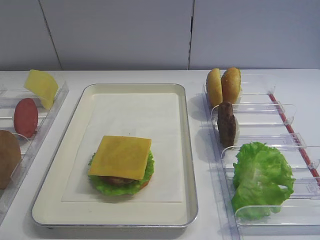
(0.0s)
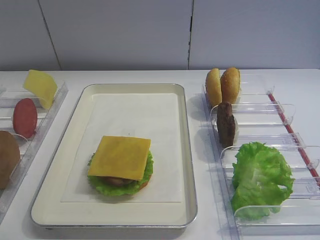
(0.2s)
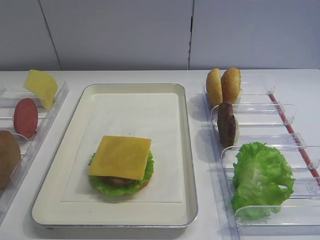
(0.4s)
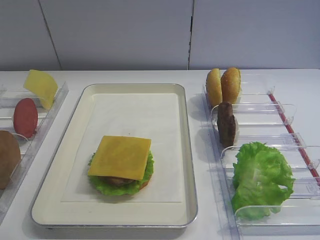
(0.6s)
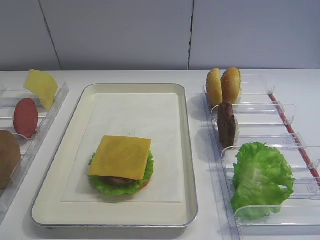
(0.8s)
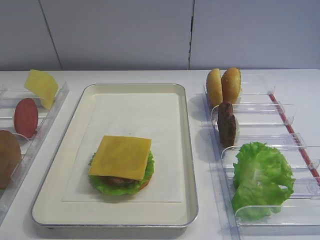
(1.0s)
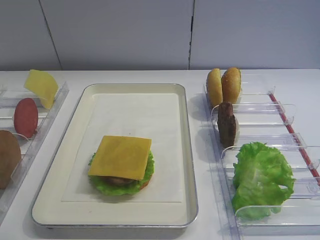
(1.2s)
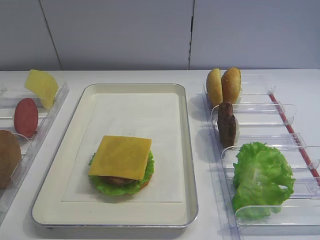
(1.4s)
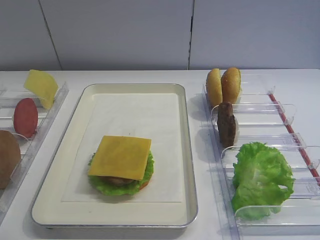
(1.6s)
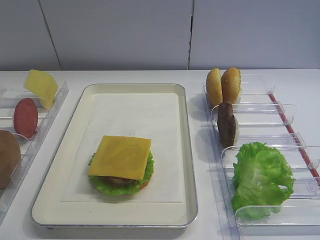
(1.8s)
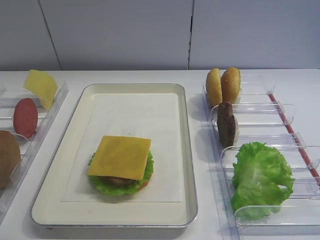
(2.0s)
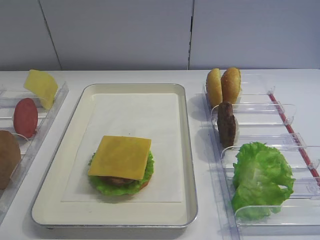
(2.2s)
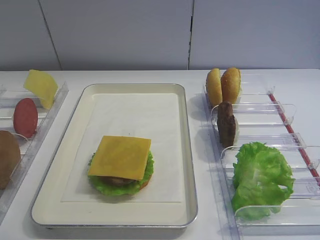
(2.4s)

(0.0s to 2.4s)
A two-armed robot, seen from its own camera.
0.0s - 1.2s: Both grippers stay put.

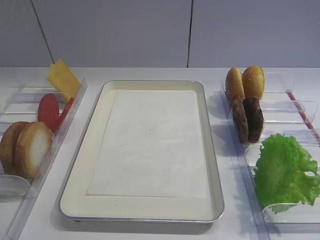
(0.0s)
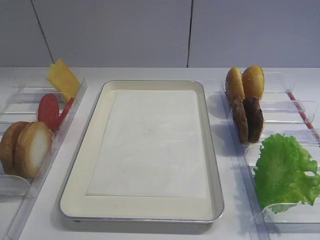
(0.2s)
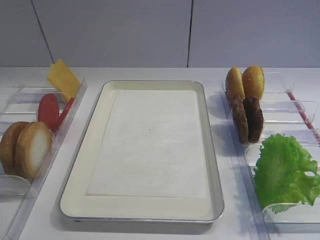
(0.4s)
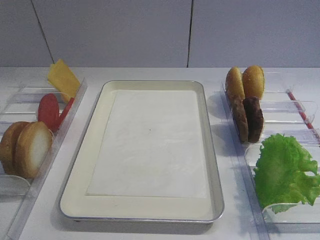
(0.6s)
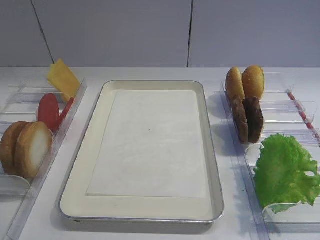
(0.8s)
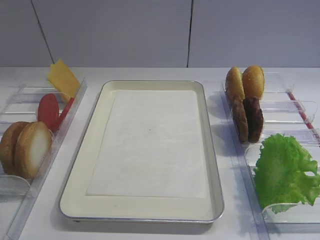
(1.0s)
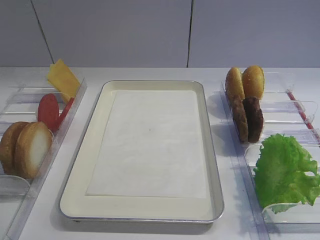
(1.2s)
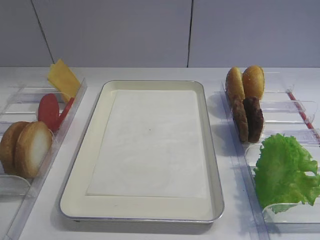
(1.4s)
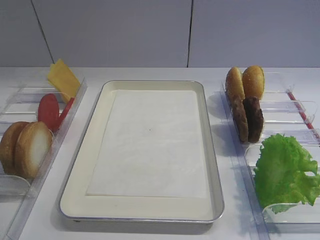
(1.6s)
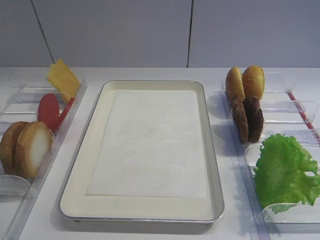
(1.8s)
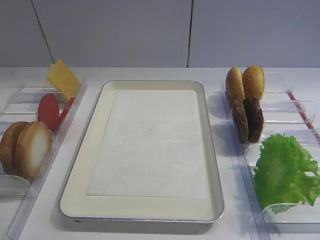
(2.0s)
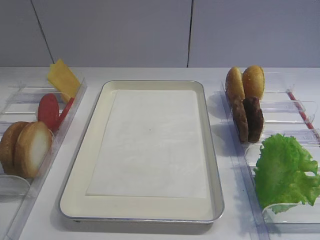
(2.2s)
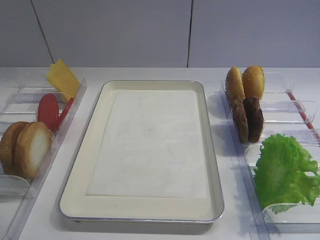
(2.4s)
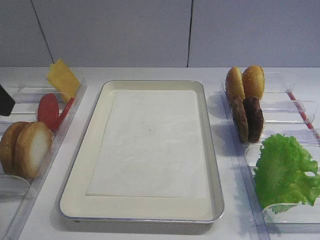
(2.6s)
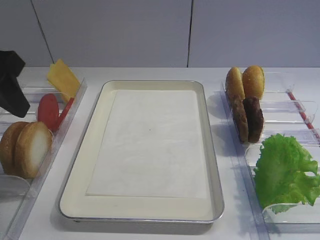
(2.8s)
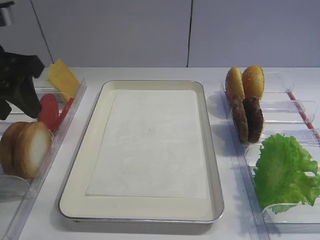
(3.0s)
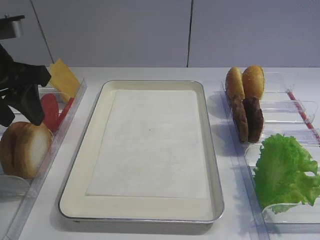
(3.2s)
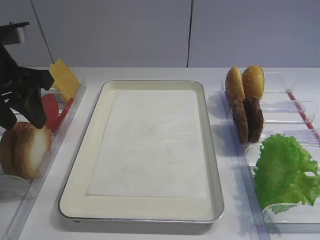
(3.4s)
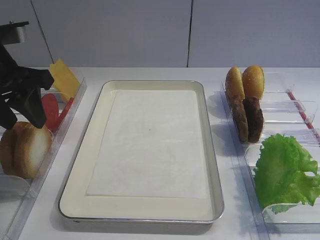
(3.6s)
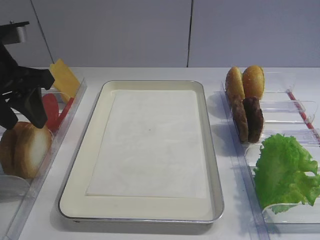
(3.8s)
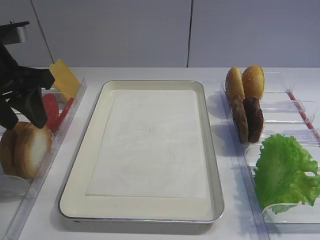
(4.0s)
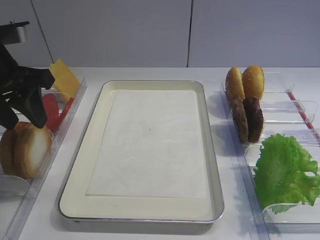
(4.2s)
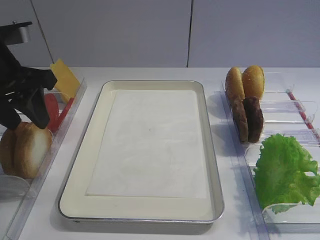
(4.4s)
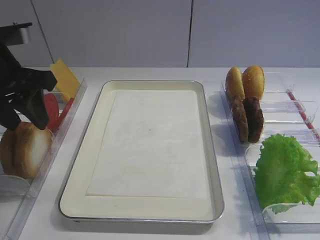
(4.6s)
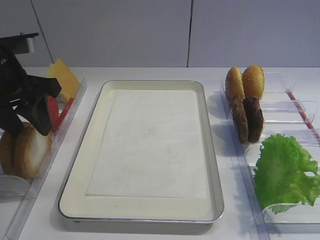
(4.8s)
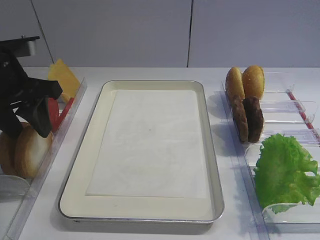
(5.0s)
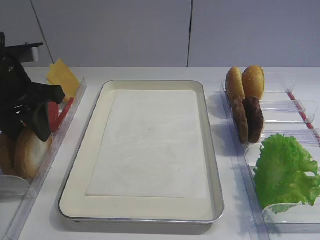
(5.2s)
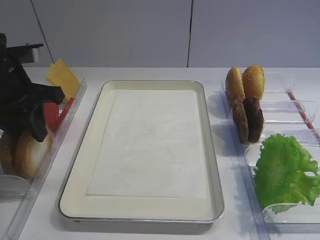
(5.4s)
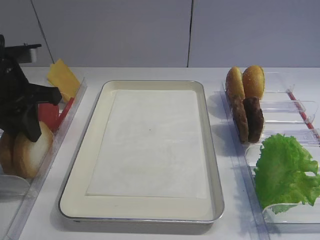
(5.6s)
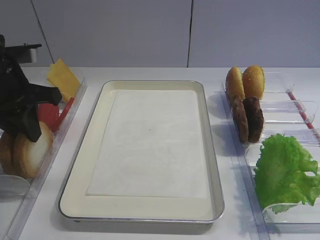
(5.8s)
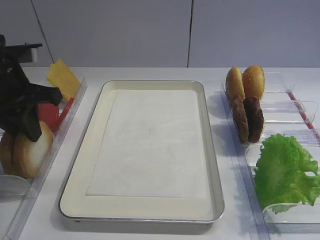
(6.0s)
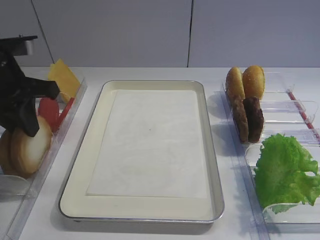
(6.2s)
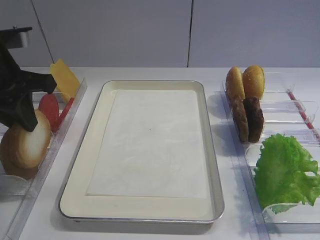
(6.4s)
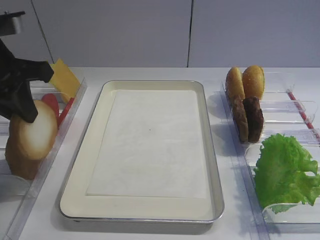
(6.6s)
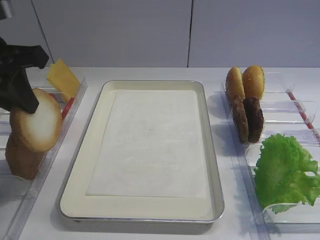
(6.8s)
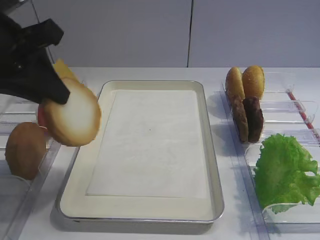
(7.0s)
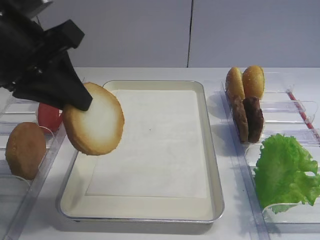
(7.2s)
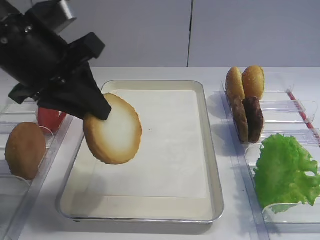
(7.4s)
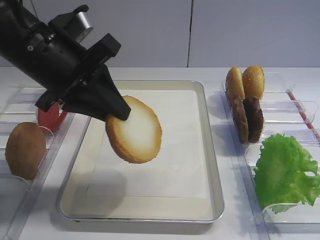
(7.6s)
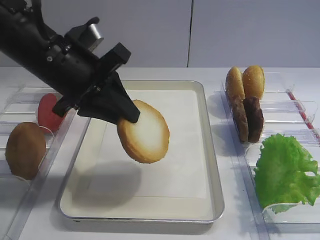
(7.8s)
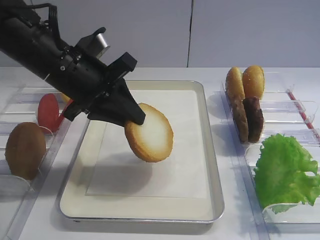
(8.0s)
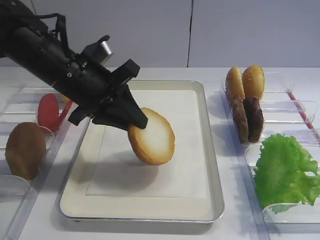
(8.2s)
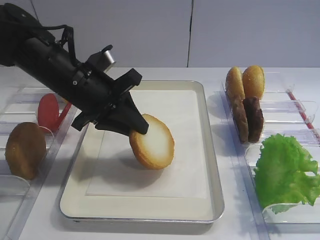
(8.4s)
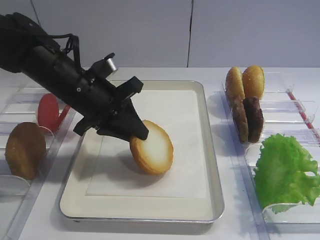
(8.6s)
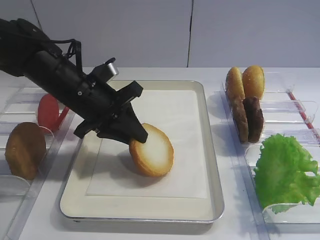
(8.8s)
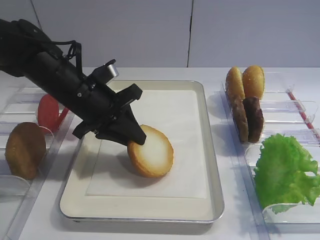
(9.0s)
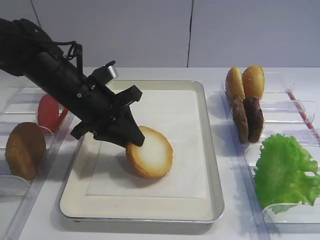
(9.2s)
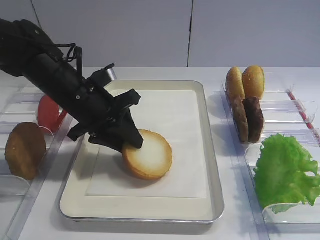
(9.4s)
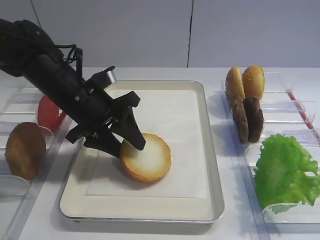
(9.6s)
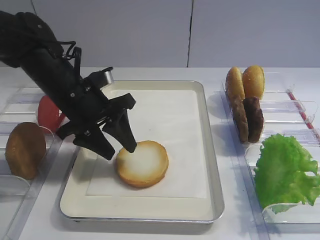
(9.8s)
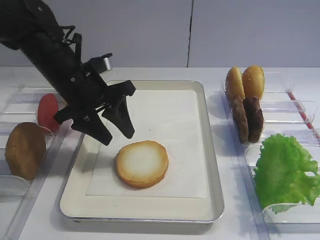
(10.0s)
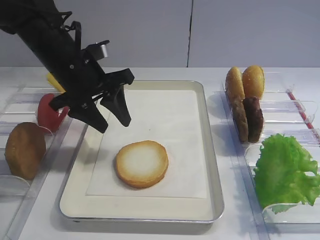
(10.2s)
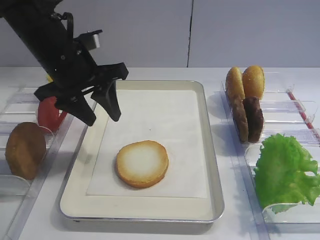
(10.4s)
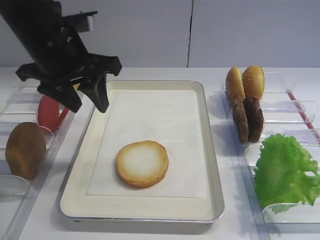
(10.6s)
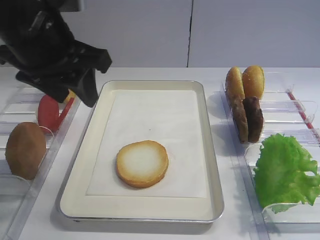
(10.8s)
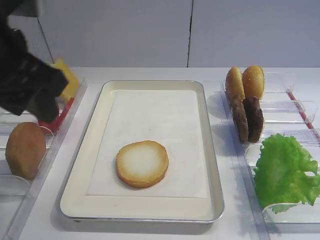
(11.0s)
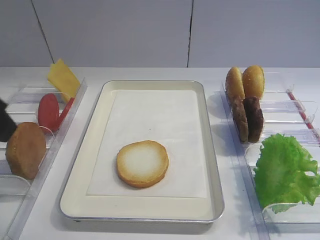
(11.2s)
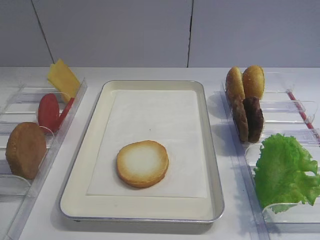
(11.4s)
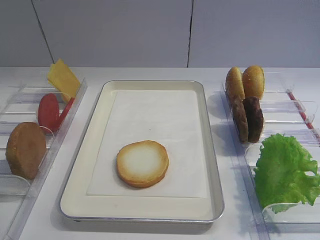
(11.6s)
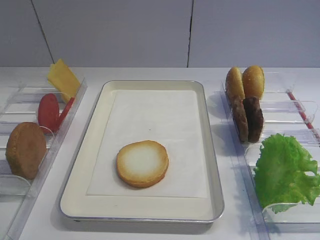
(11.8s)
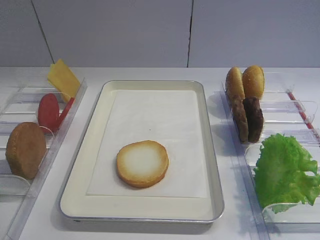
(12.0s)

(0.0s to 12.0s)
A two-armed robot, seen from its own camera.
Step, 0.0s - 6.6s: Pick up the bread slice with the left gripper.
Step, 6.8s - 10.2s: Place the bread slice on the tray with the left gripper.
1.6s - 3.0s: The left gripper shifts approximately 25 cm forward, and opens up.
3.0s - 4.4s: The grippers stay close to where they were, moving slightly.
4.4s - 6.0s: The left gripper closes its fingers.
6.0s - 7.6s: The left gripper shifts about 10 cm to the right.
7.6s - 9.0s: The left gripper goes some 10 cm downward and forward.
9.0s - 10.4s: The left gripper travels upward by roughly 5 cm, and opens its fingers.
10.4s - 12.0s: The left gripper heads backward and to the left, covering about 35 cm.

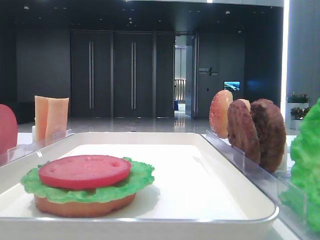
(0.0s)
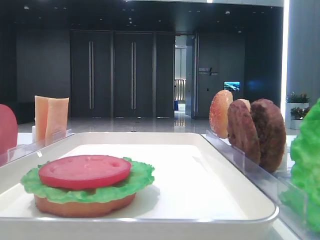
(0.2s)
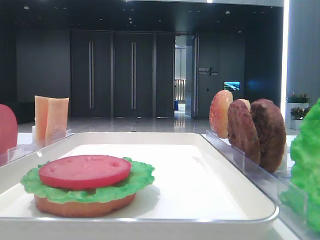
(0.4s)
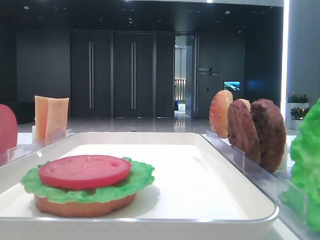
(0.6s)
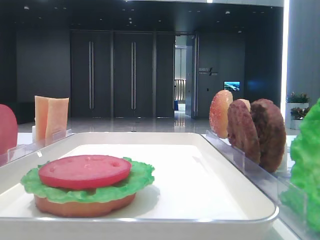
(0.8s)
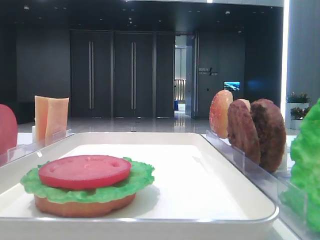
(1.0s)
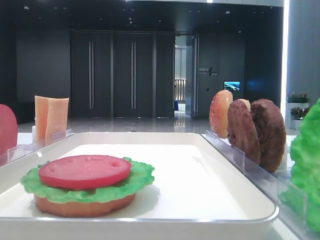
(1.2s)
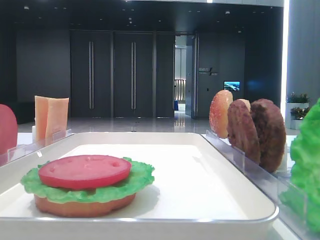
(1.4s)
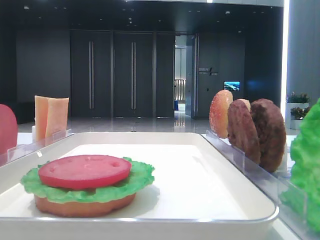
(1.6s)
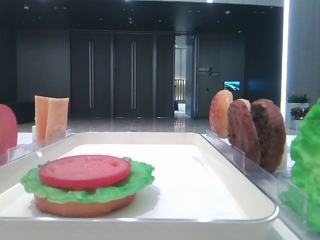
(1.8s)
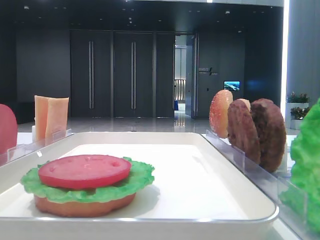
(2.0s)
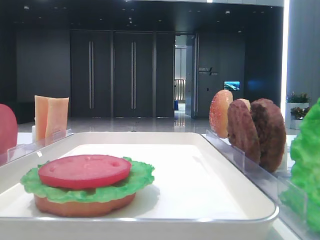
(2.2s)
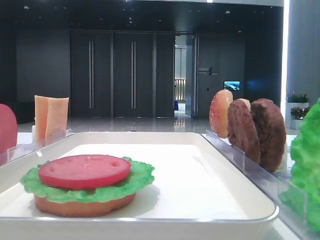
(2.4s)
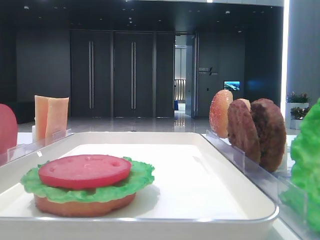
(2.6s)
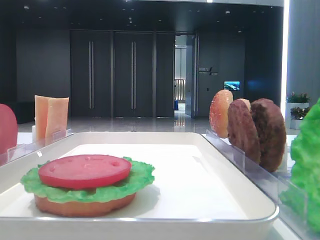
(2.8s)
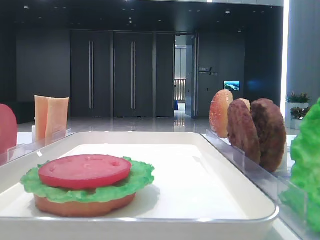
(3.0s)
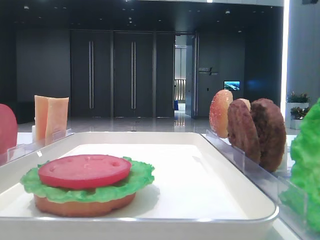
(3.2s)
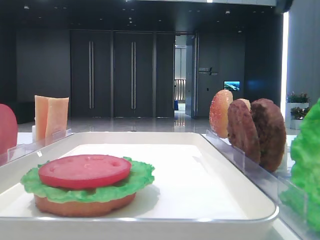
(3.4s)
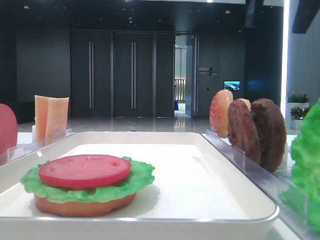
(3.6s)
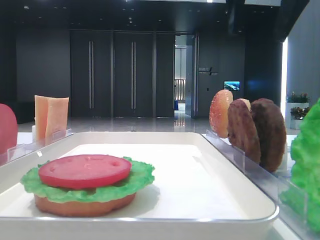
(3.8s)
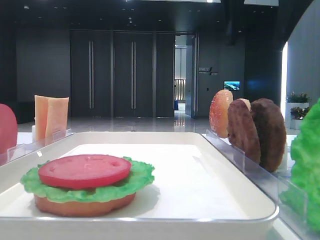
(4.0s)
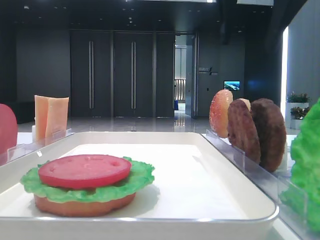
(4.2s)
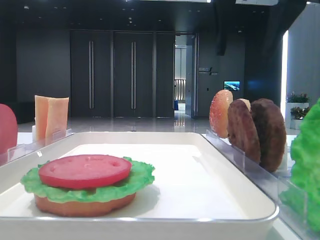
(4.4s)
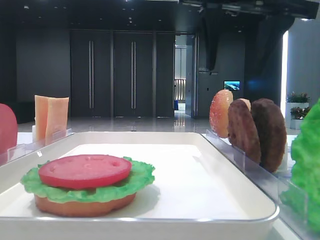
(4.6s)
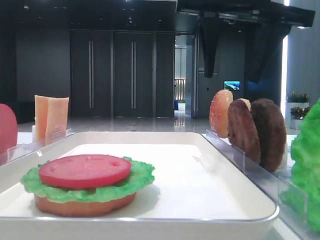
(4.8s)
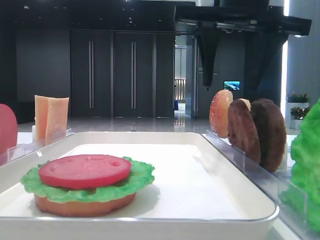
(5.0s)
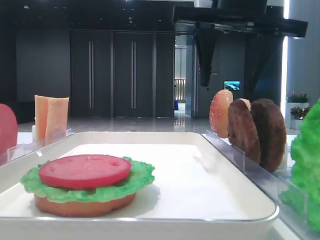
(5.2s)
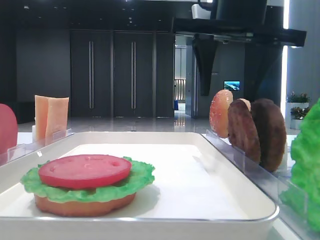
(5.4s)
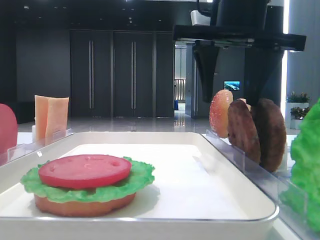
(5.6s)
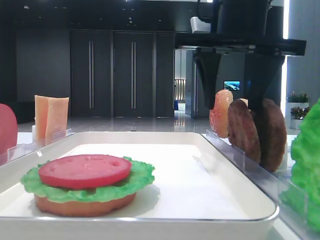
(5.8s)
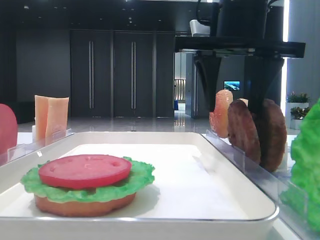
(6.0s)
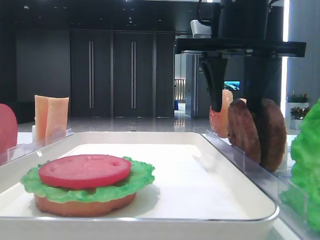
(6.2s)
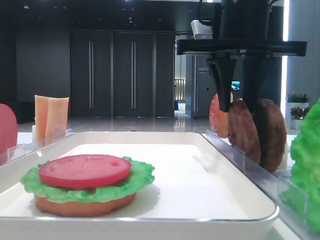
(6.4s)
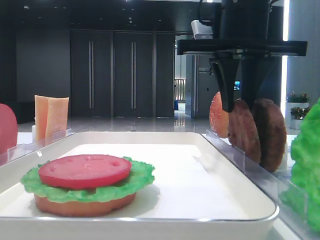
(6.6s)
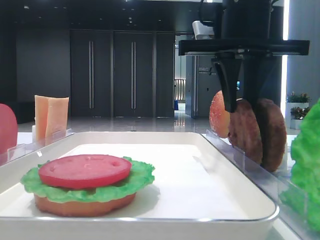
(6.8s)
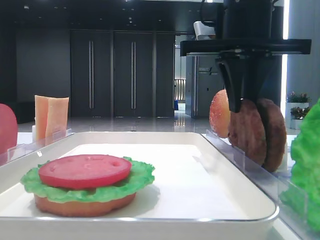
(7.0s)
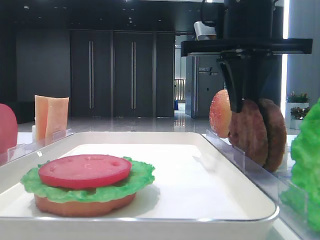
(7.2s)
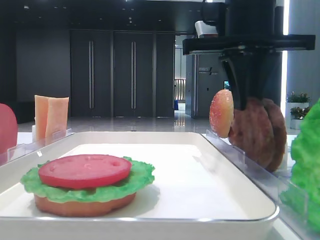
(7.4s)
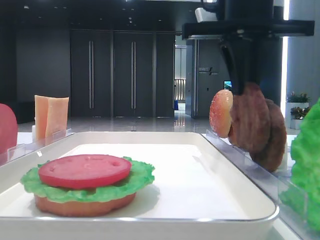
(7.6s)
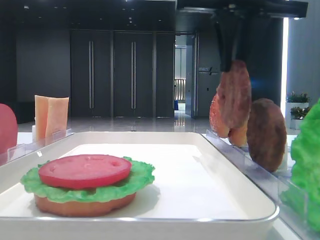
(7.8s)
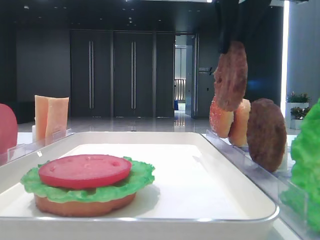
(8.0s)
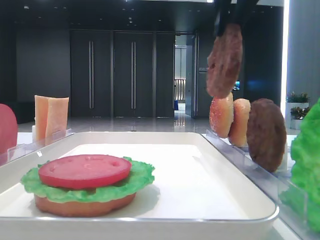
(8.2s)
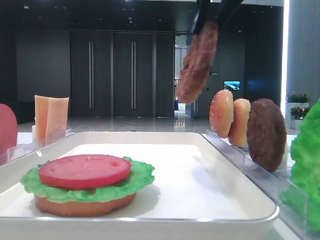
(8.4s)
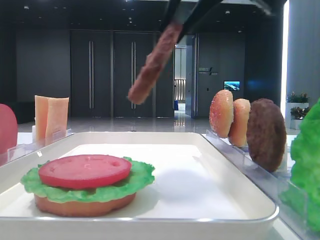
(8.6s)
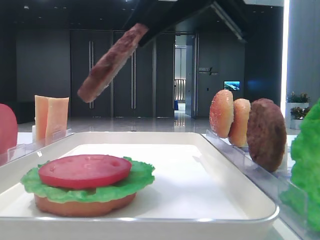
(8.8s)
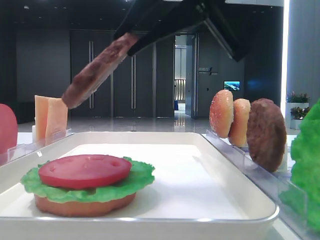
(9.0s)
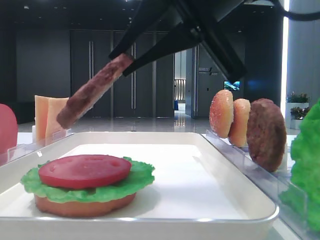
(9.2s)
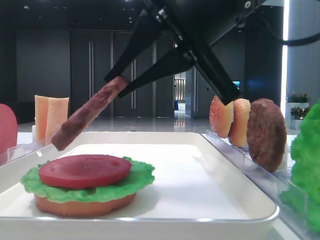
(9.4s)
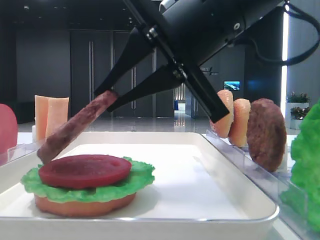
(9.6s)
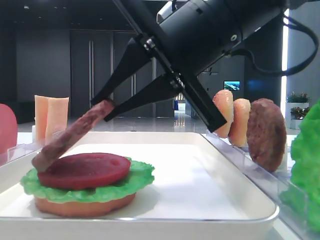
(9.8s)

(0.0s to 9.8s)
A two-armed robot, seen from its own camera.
Step, 0.0s - 7.0s: Grab the patty with the right hand.
2.8s - 4.2s: The right gripper heads to the left, covering some 15 cm.
4.2s - 5.6s: The right gripper shifts some 5 cm downward.
5.6s - 7.0s: The right gripper closes up.
7.0s - 8.4s: The right gripper is displaced upward and backward by roughly 10 cm.
8.4s - 9.8s: The right gripper travels downward by roughly 15 cm.
